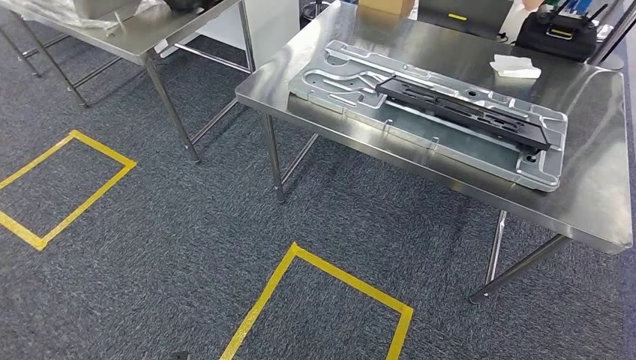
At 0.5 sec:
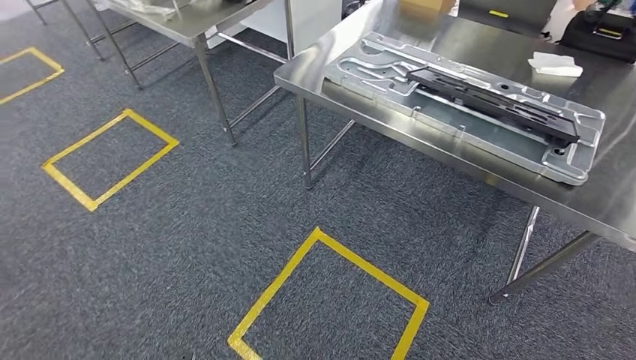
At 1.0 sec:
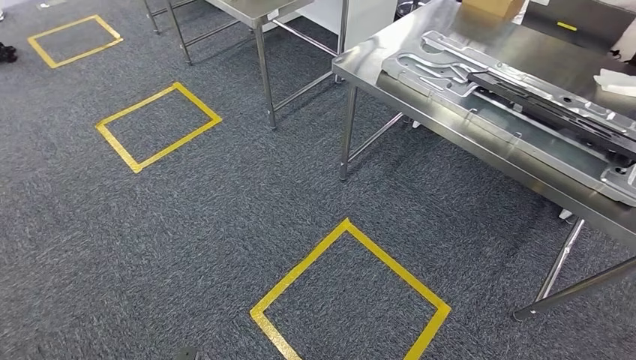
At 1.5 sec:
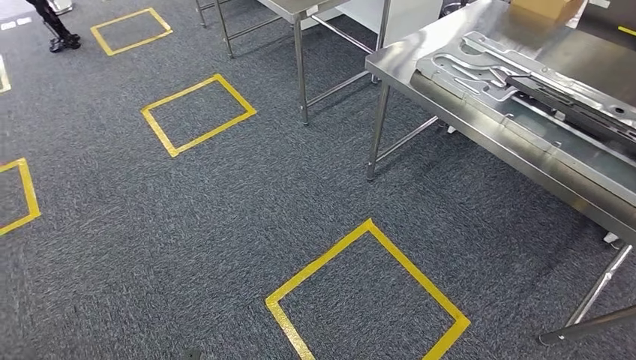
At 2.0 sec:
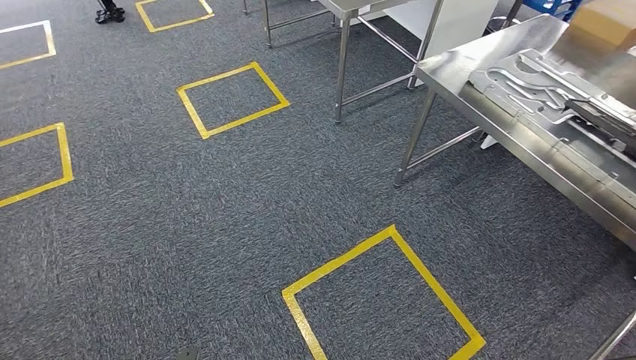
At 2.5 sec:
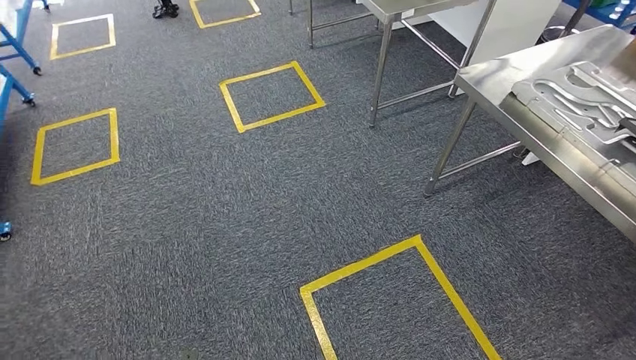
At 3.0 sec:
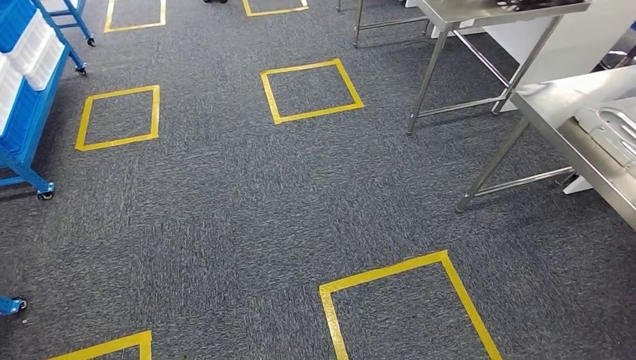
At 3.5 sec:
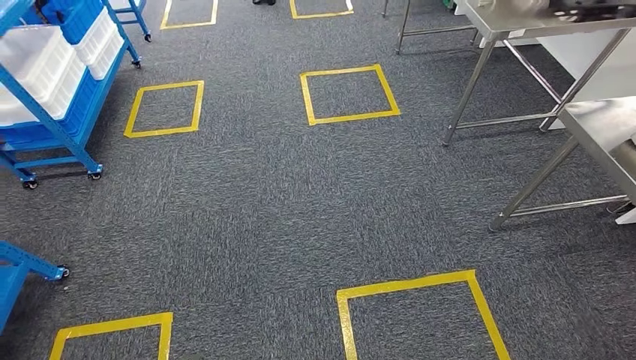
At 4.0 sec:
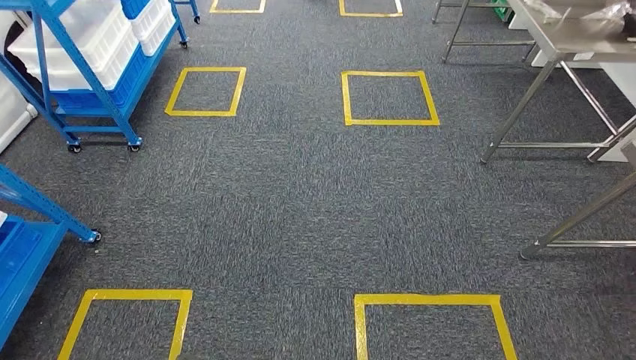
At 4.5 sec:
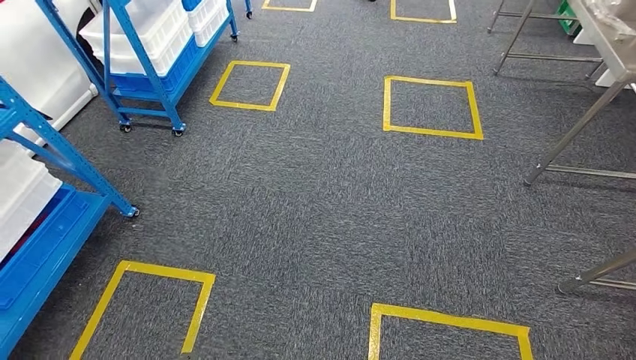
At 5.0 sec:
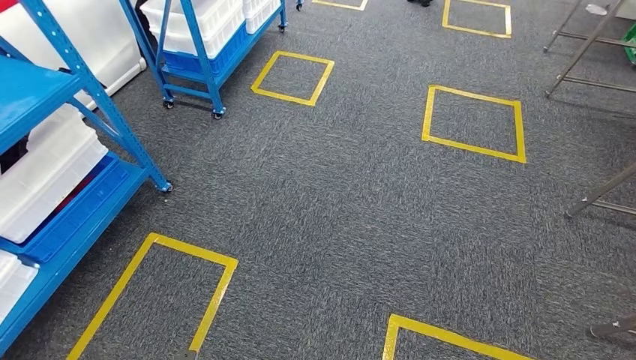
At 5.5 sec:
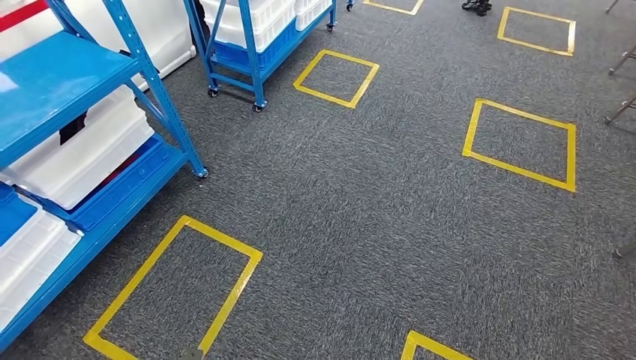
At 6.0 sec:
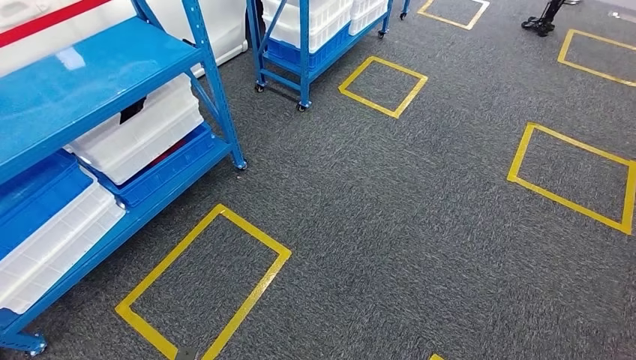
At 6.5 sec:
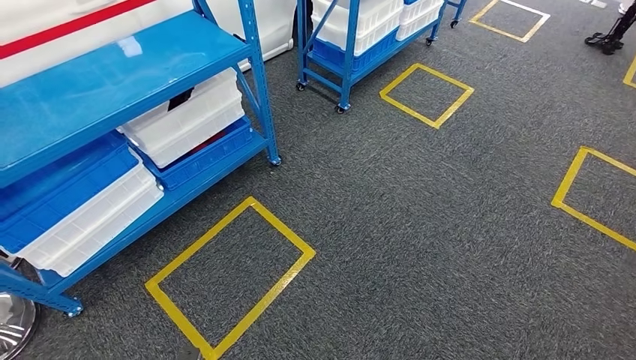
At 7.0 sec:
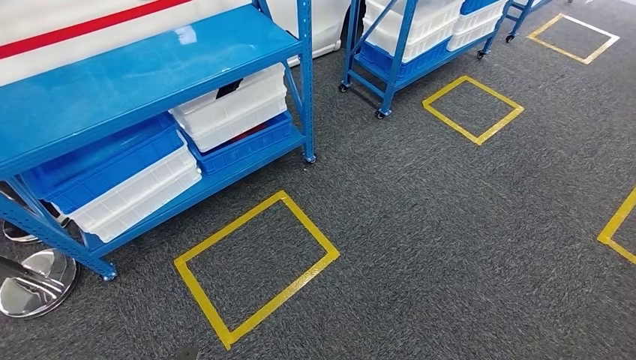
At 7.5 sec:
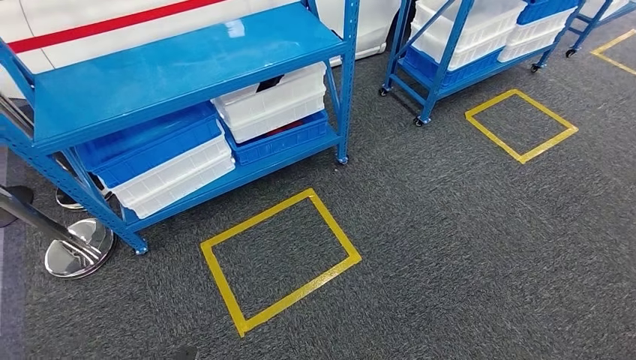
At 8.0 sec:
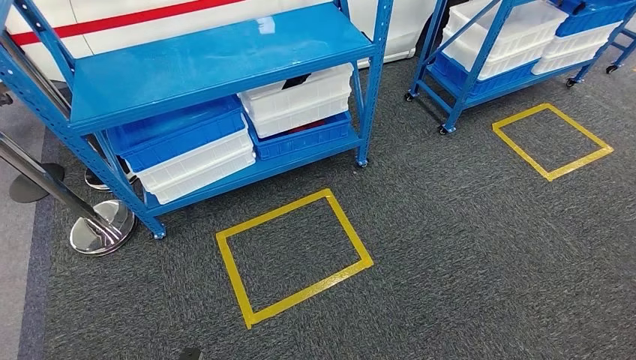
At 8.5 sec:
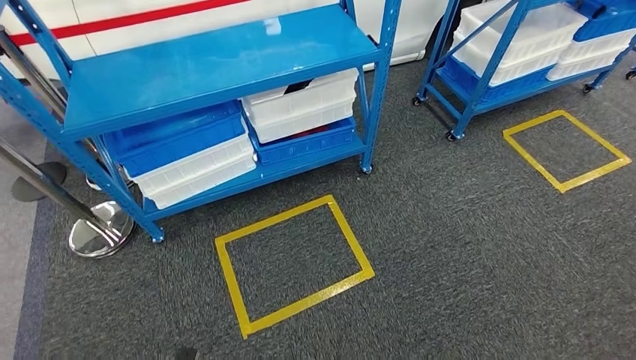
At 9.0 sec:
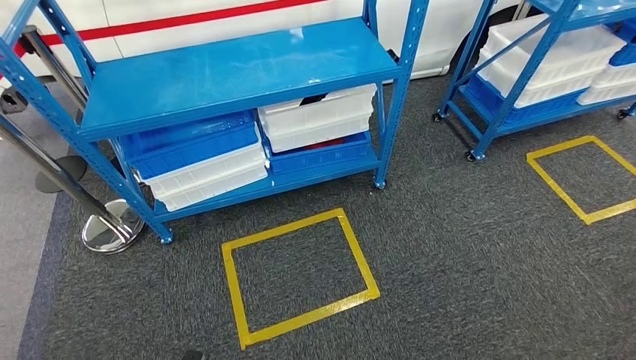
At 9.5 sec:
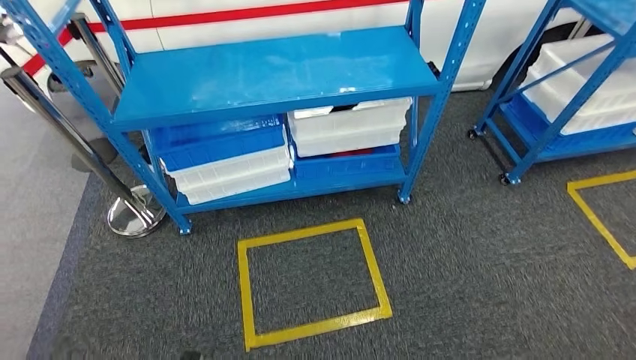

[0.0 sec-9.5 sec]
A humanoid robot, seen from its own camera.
Step, 3.0 sec to 9.5 sec: Return to the initial position at the shelf.
